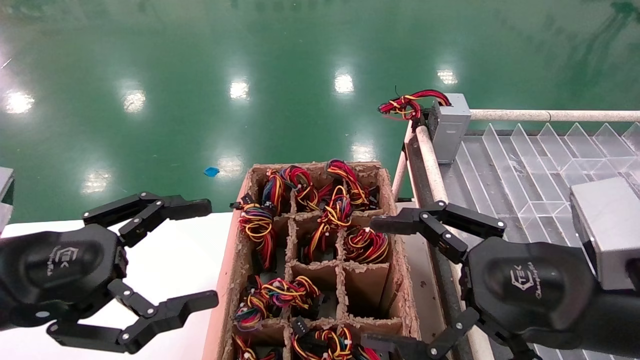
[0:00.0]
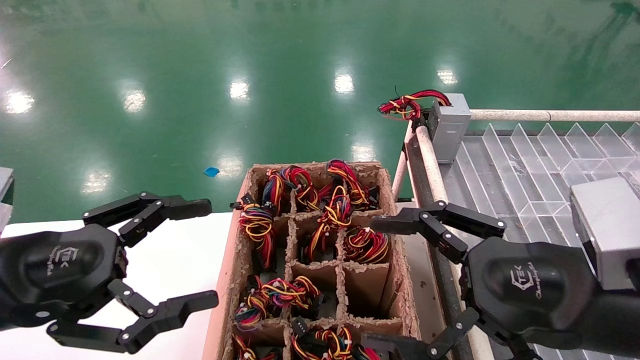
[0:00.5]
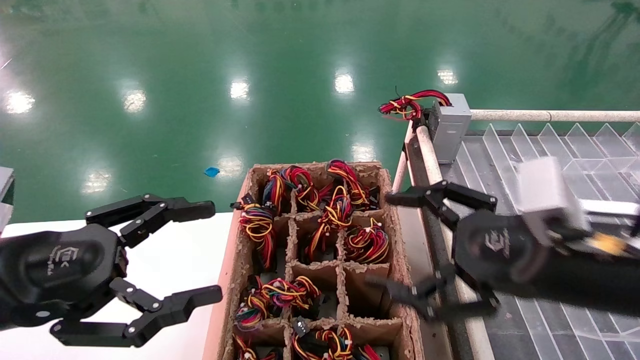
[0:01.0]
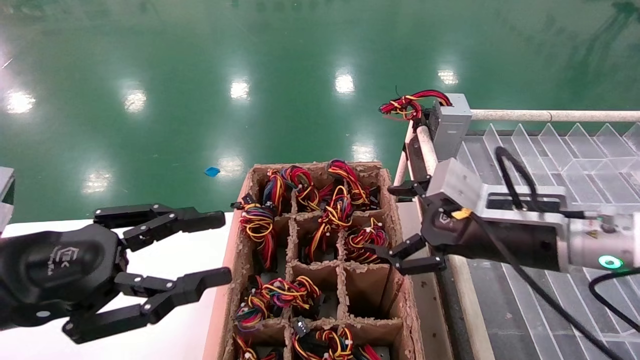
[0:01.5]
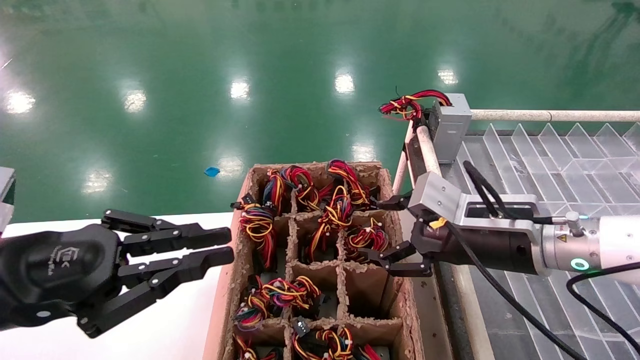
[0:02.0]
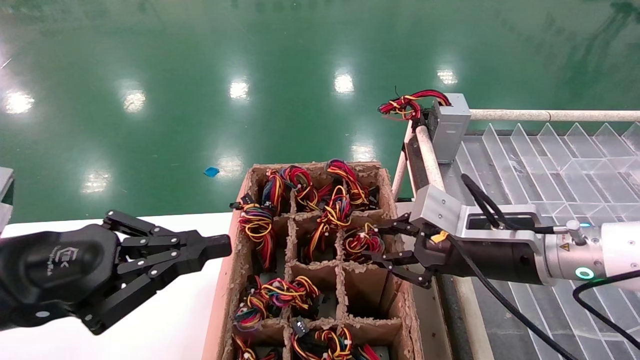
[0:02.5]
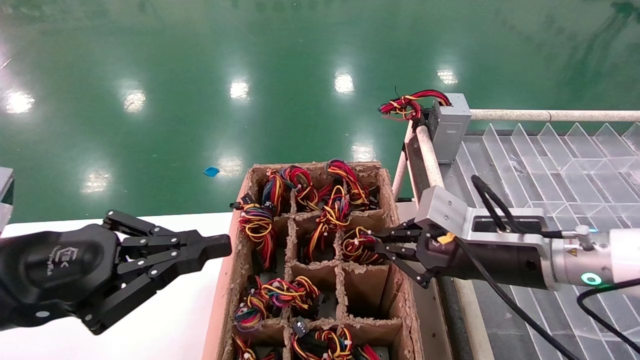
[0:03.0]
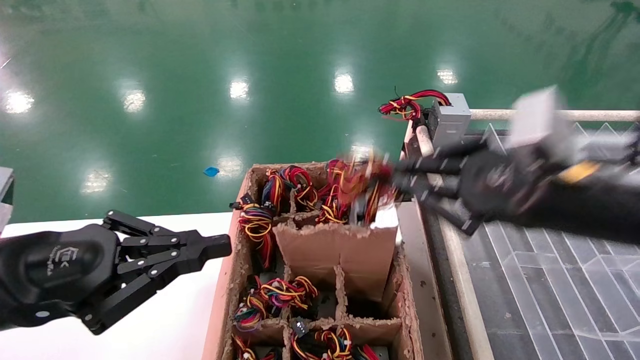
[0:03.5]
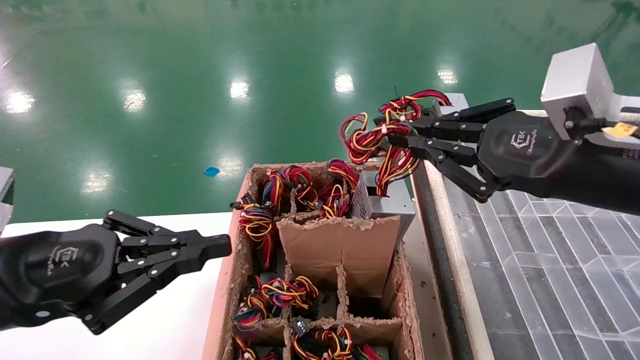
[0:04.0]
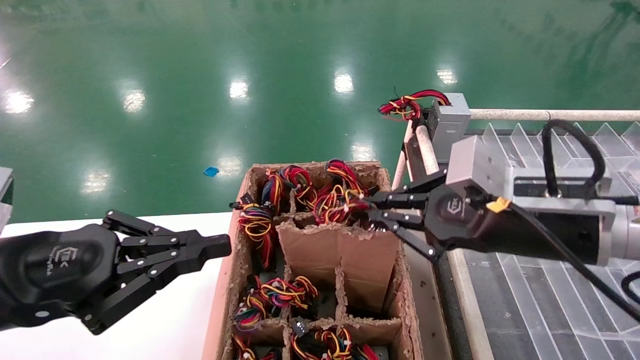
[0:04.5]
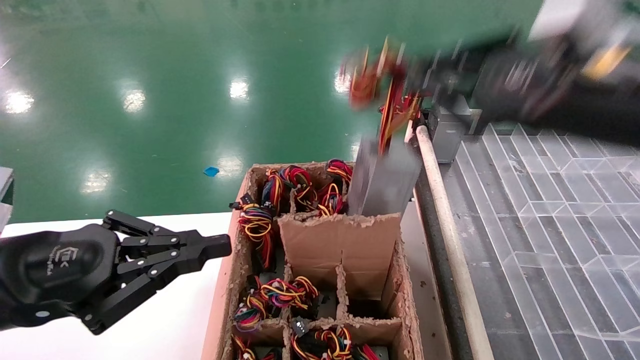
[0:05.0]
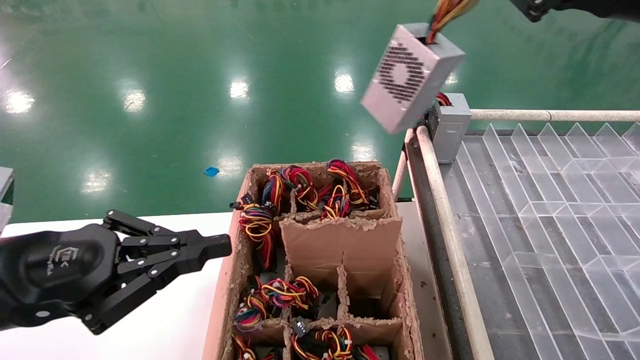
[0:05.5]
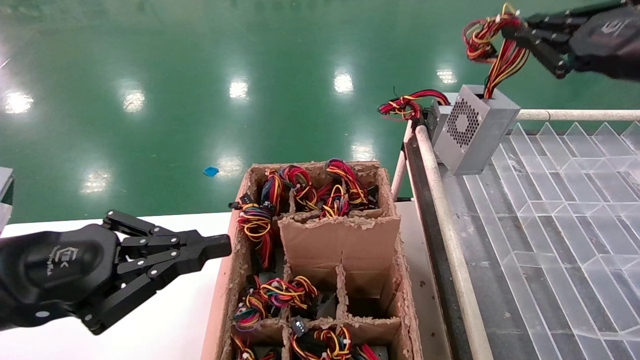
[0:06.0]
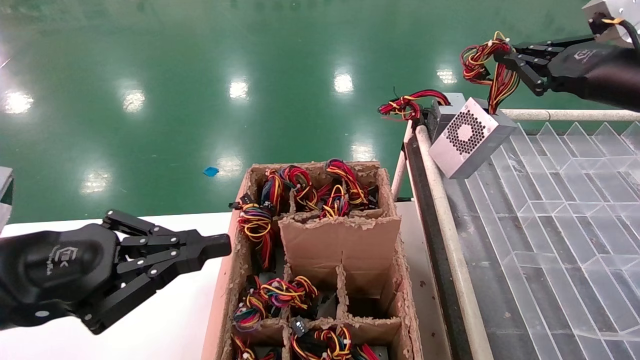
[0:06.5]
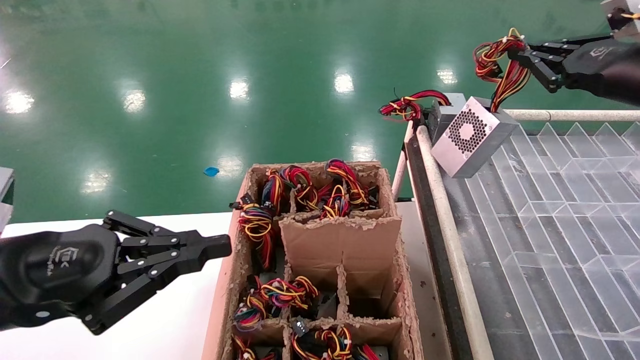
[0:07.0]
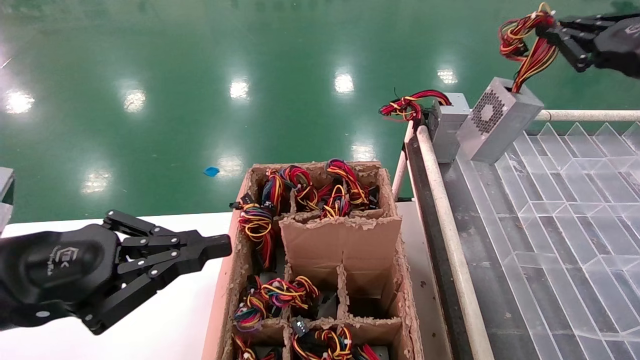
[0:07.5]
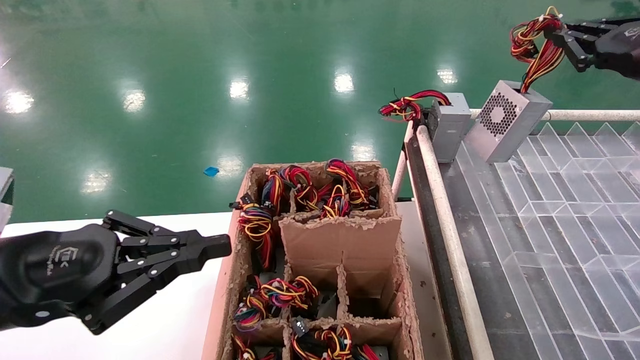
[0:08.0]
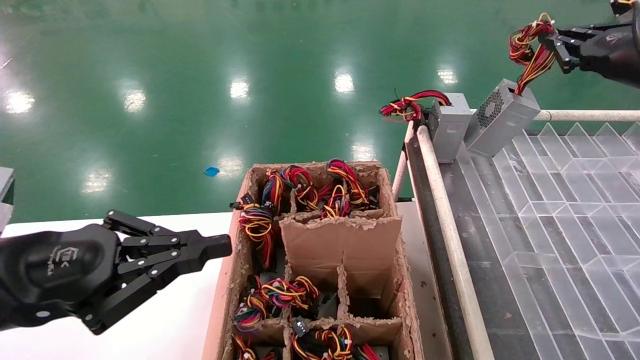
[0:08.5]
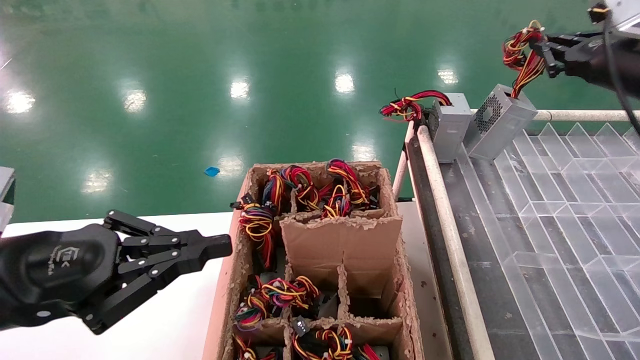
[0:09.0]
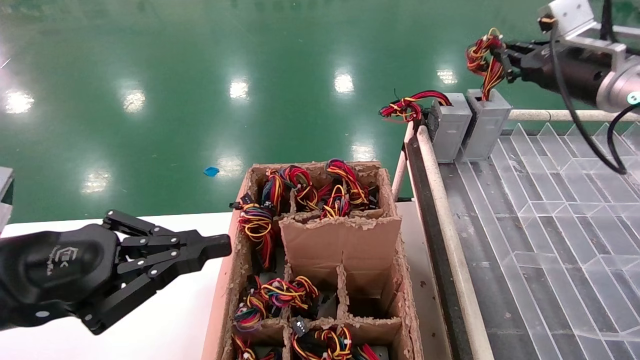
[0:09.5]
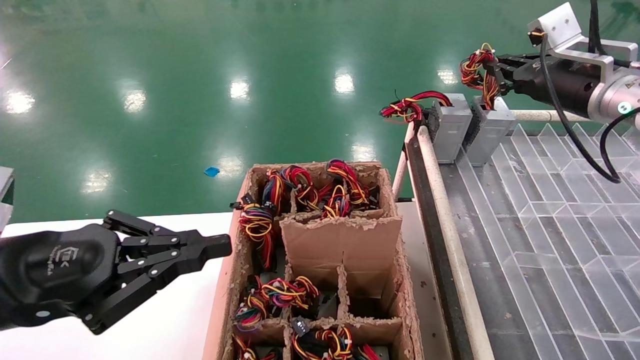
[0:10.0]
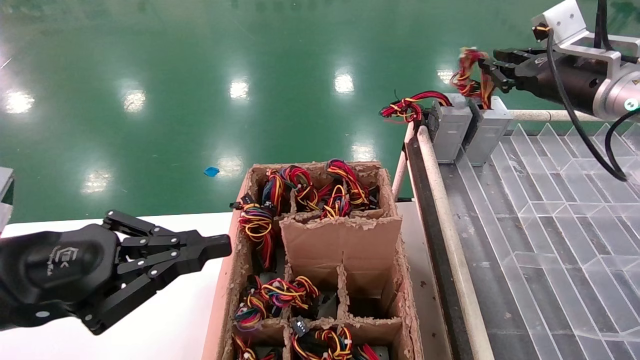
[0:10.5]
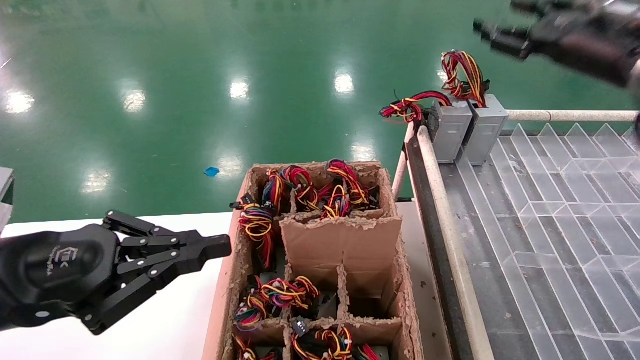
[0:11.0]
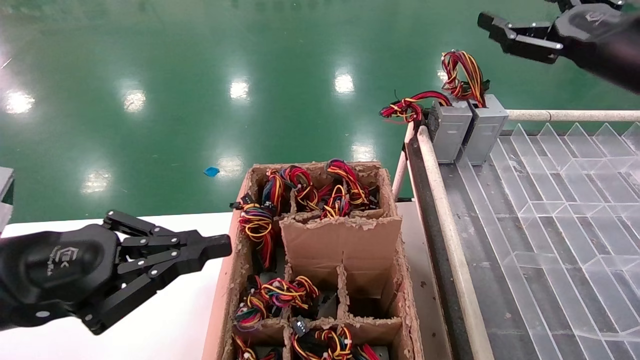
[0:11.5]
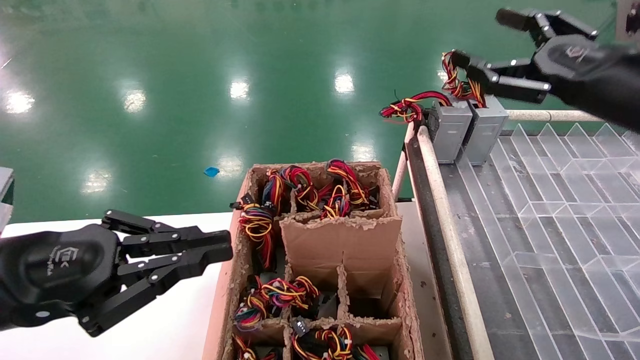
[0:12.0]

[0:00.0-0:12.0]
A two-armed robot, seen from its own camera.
Step, 0:01.5 to 0:03.0: Grab the main unit power supply from the containment box.
Step, 0:03.5 to 0:10.5: Place the main unit power supply in the designated area.
0:00.0 to 0:02.0: The left gripper closes, while the right gripper shifts some 10 cm forward.
0:02.0 to 0:04.0: The right gripper heads upward and backward, covering about 10 cm, and closes its fingers.
0:04.0 to 0:06.0: The right gripper goes roughly 15 cm to the right, upward and forward.
0:06.0 to 0:08.0: The right gripper is displaced to the right by approximately 5 cm.
0:08.0 to 0:10.0: The right gripper moves forward and to the left, approximately 10 cm.
0:10.0 to 0:12.0: The right gripper travels backward by roughly 10 cm, and opens up.

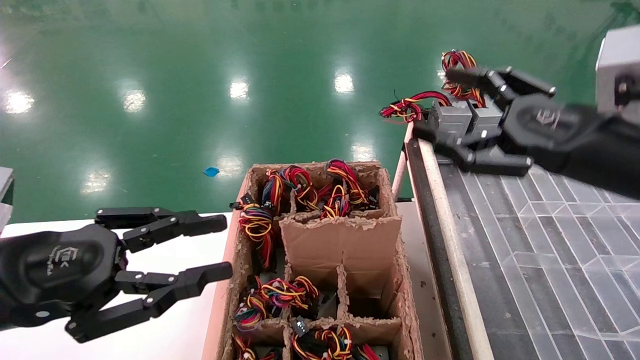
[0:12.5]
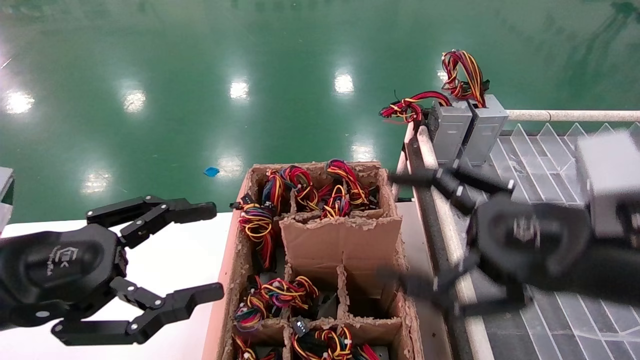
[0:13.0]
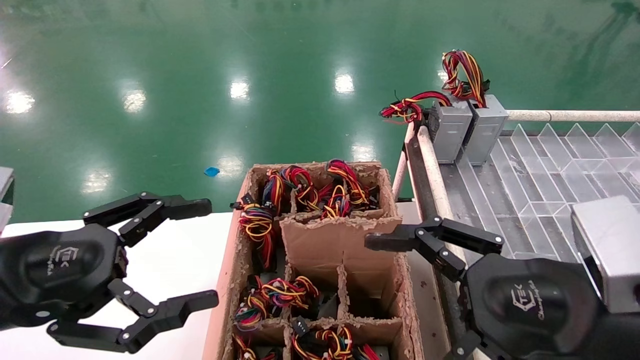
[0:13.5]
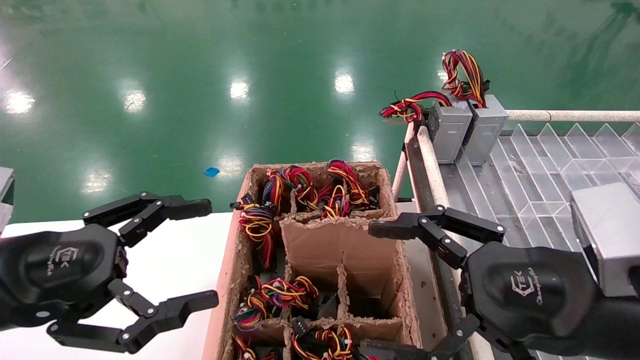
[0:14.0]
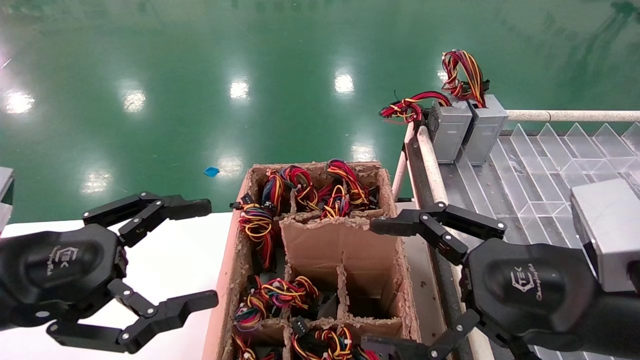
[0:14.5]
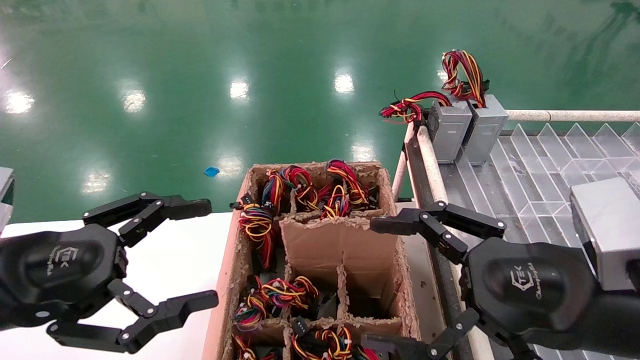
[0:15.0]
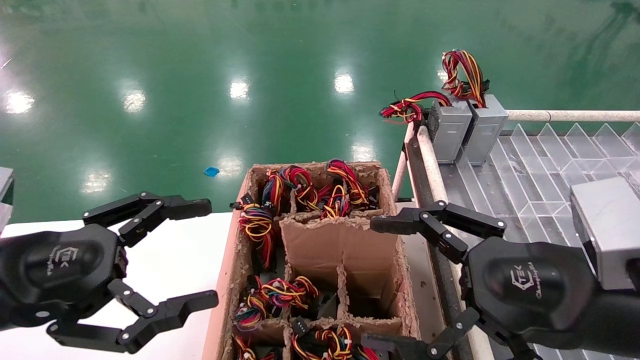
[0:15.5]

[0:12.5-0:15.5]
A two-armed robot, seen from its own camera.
0:12.5 to 0:14.0: The left gripper opens up. The right gripper is displaced backward, downward and to the left by roughly 10 cm.
0:14.0 to 0:15.5: Both grippers stay about where they are.

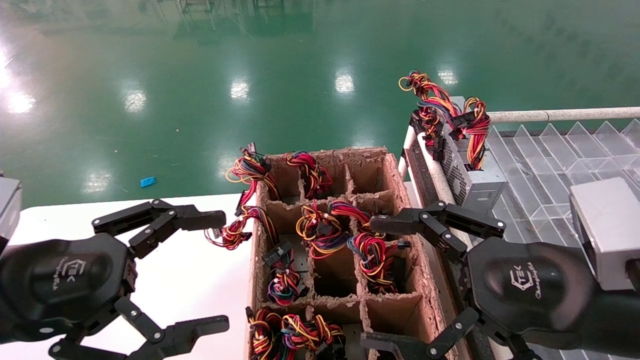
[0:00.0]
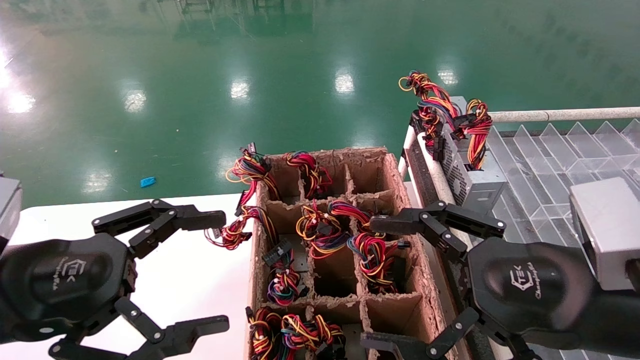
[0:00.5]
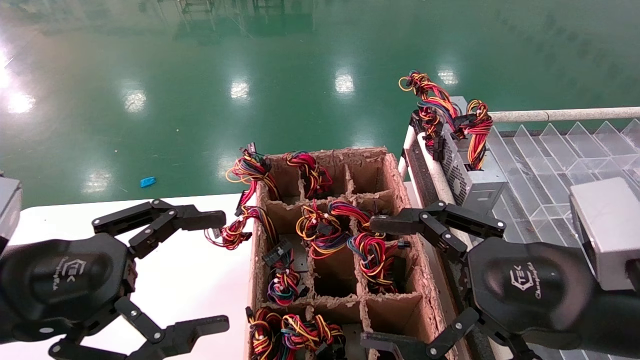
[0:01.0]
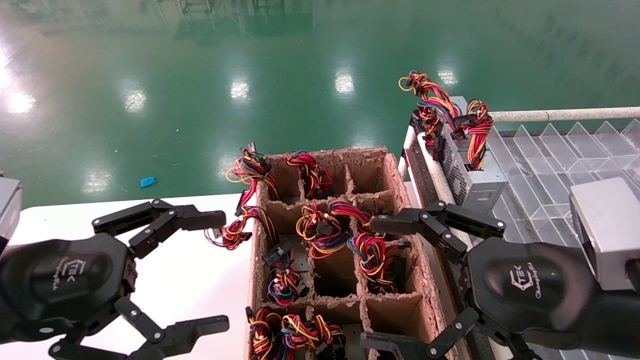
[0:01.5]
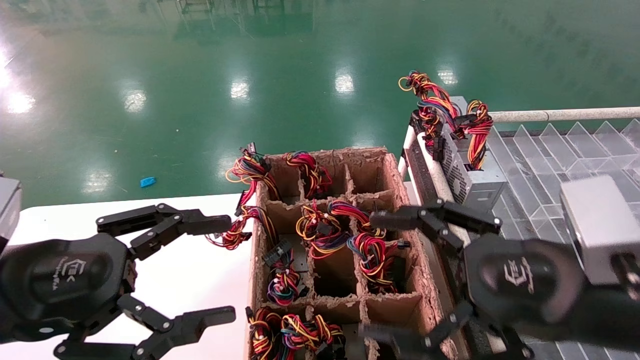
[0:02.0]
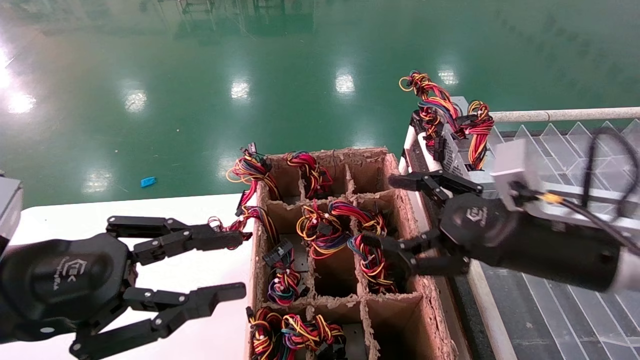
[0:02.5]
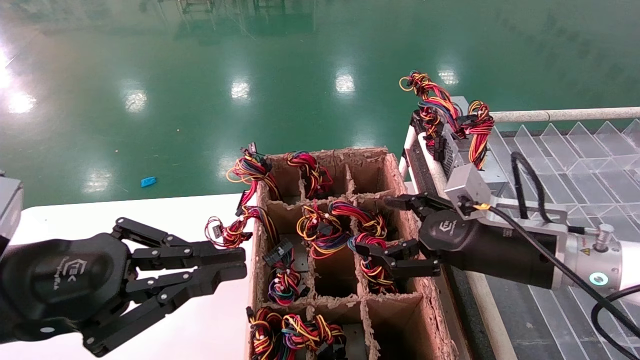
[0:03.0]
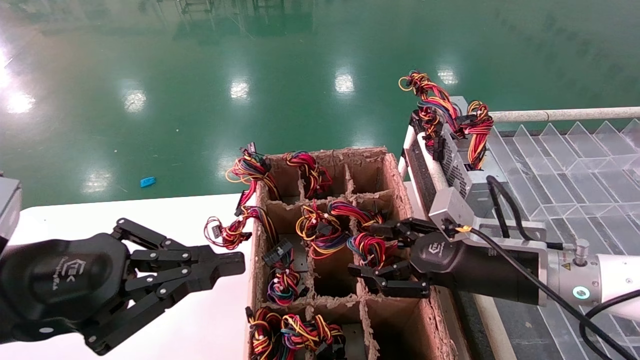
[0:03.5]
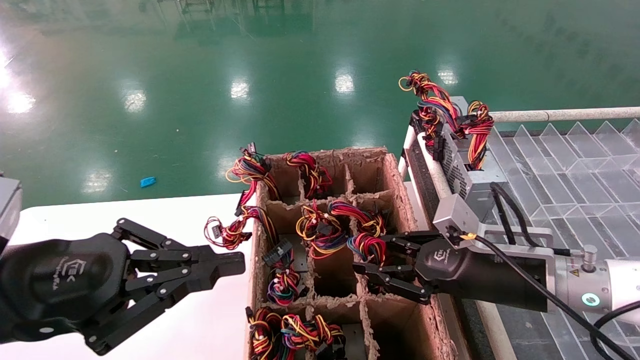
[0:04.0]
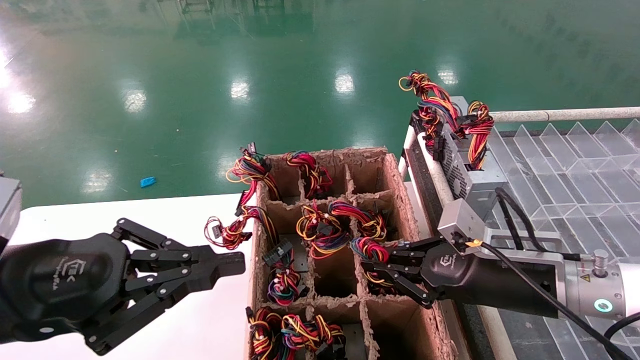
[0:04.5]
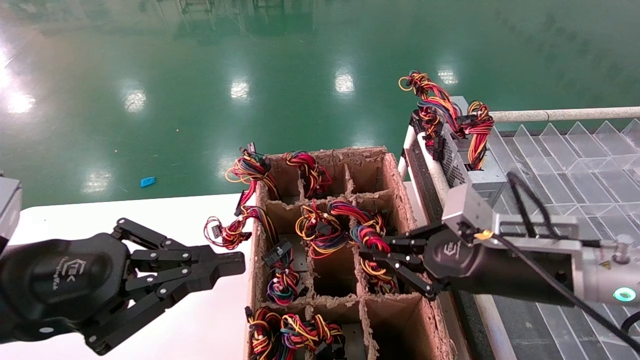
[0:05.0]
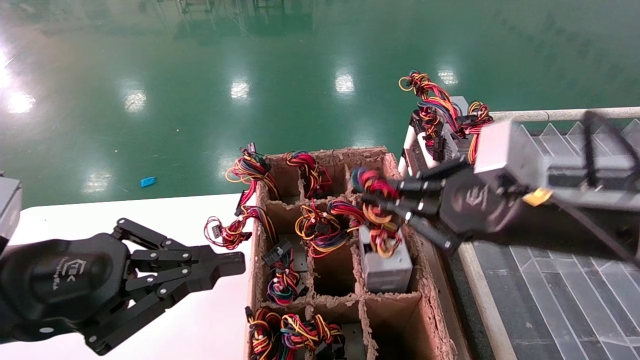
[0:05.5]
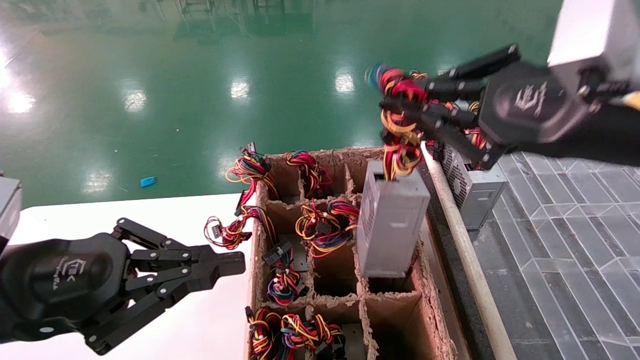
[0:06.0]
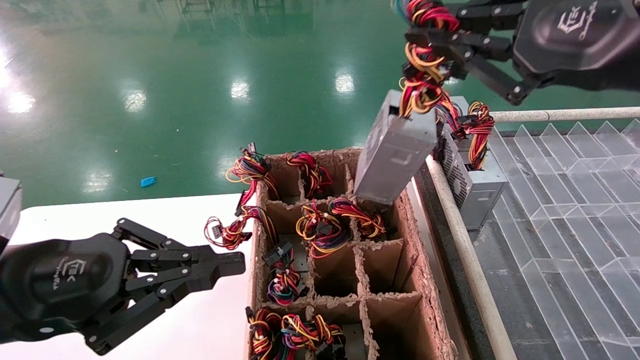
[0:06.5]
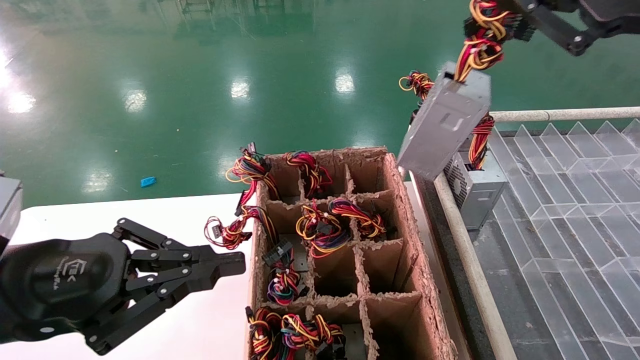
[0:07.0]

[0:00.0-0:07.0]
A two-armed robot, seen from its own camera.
Step, 0:02.5 to 0:04.5: Grab the main unit power supply from the containment box.
0:00.0 to 0:02.0: Both grippers stay put.
0:02.0 to 0:03.5: The left gripper closes up; the right gripper travels forward and downward by about 15 cm.
0:03.5 to 0:05.0: The right gripper moves approximately 5 cm, and closes its fingers.
0:05.0 to 0:07.0: The right gripper travels upward by about 25 cm.
